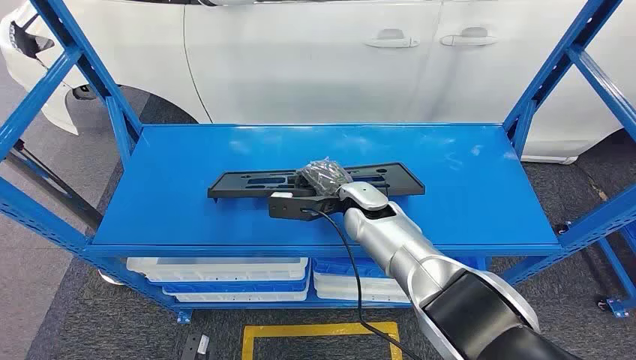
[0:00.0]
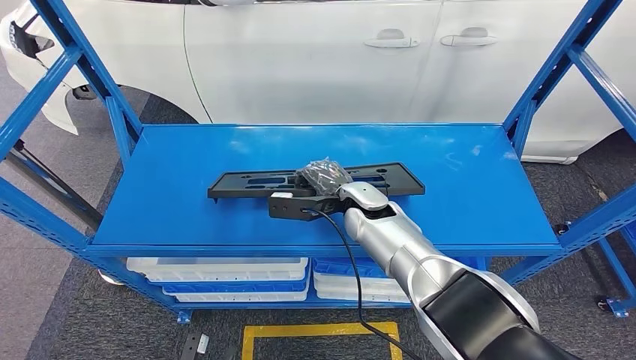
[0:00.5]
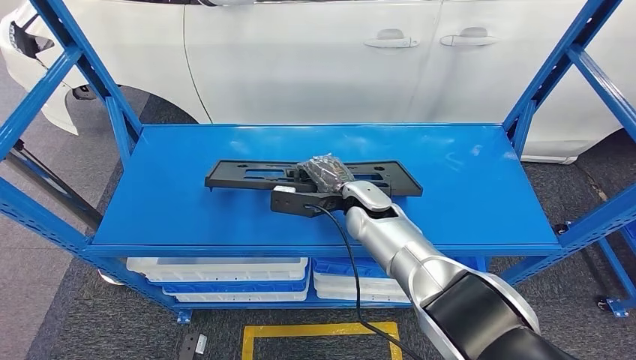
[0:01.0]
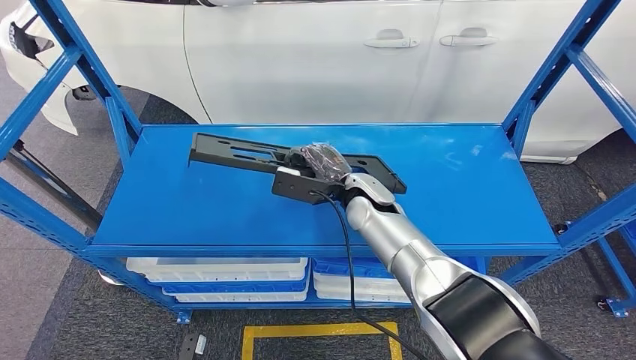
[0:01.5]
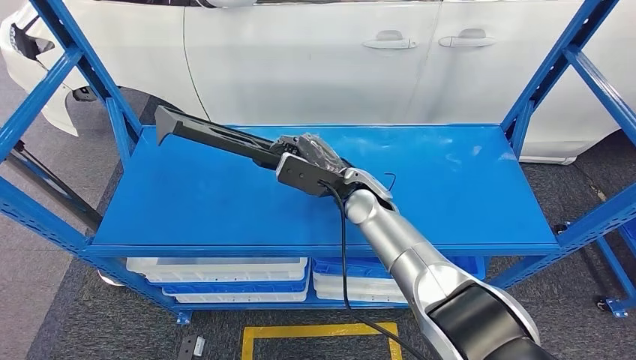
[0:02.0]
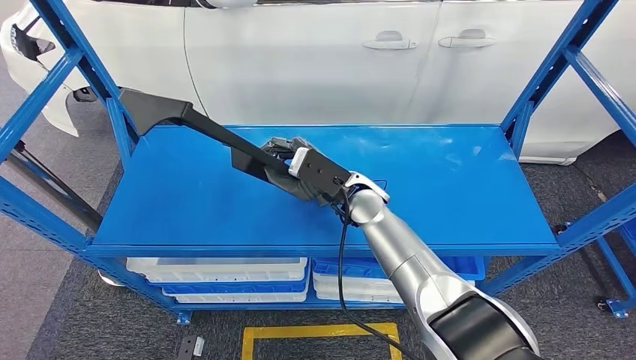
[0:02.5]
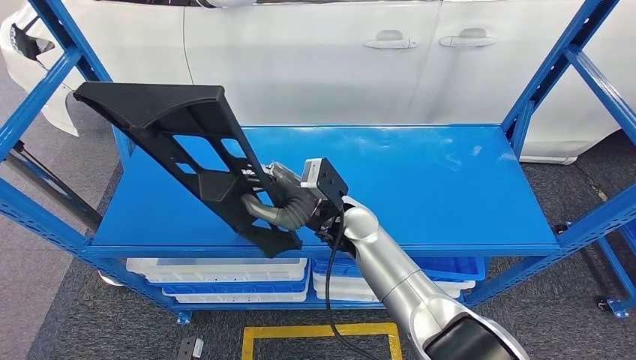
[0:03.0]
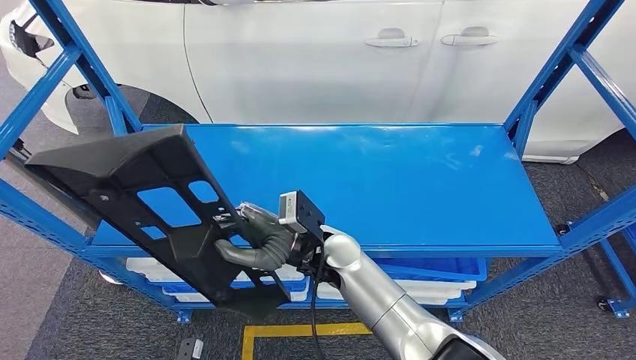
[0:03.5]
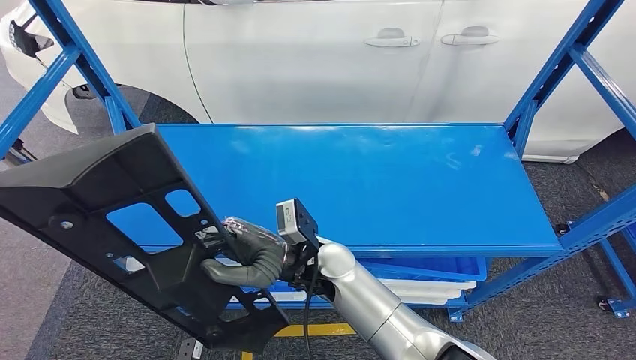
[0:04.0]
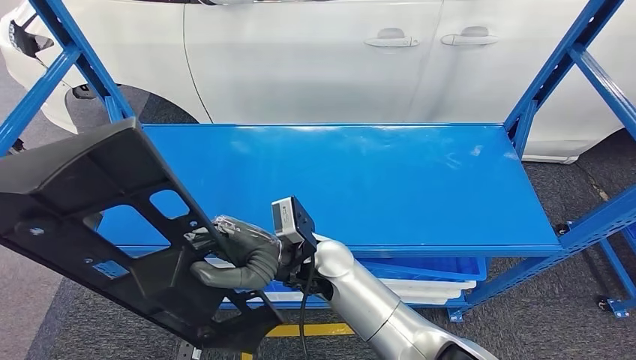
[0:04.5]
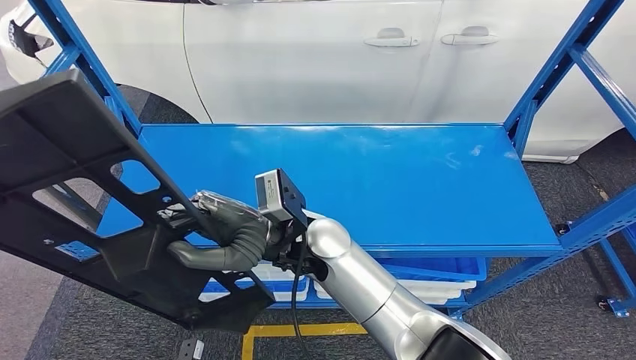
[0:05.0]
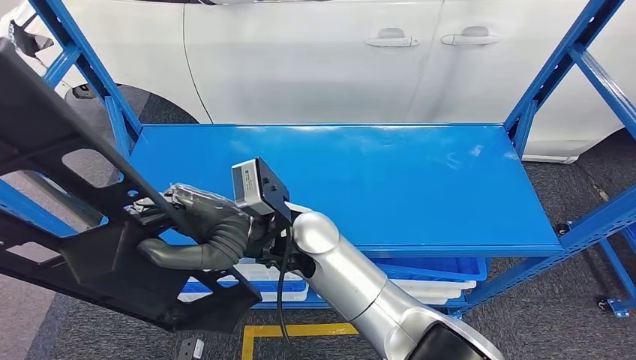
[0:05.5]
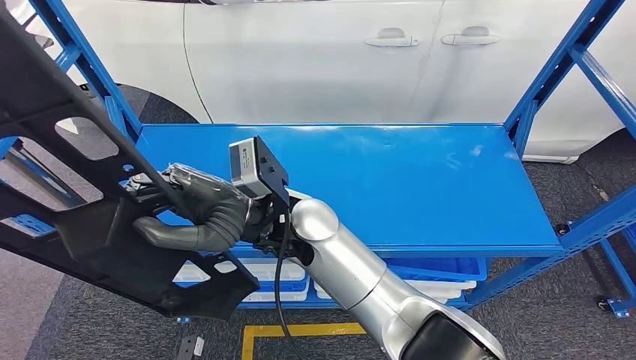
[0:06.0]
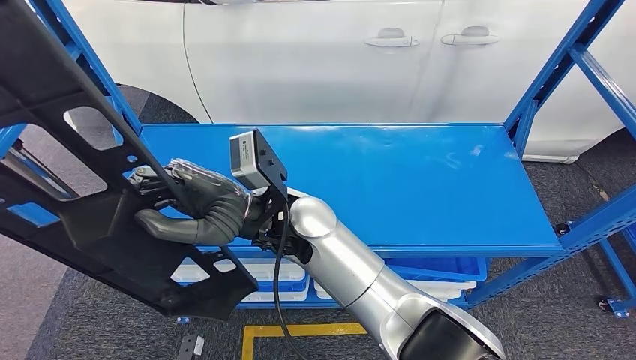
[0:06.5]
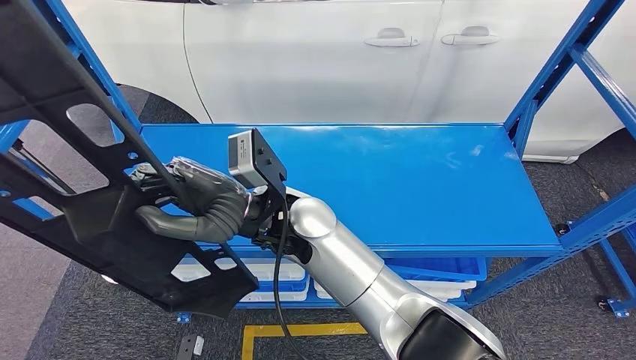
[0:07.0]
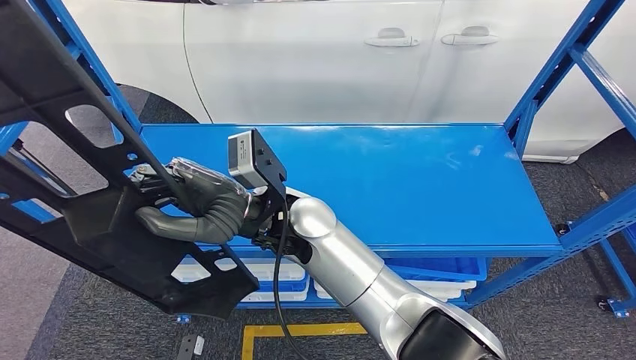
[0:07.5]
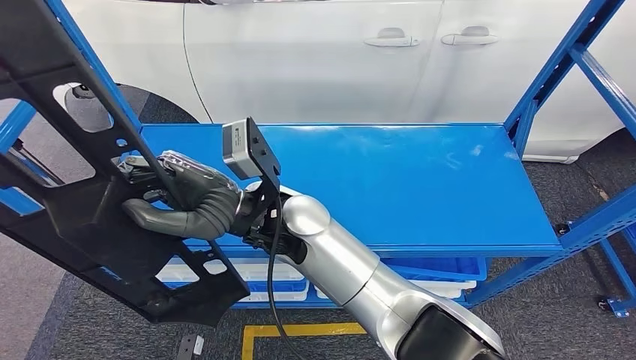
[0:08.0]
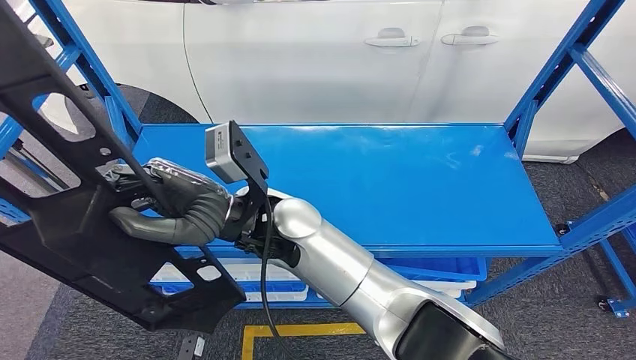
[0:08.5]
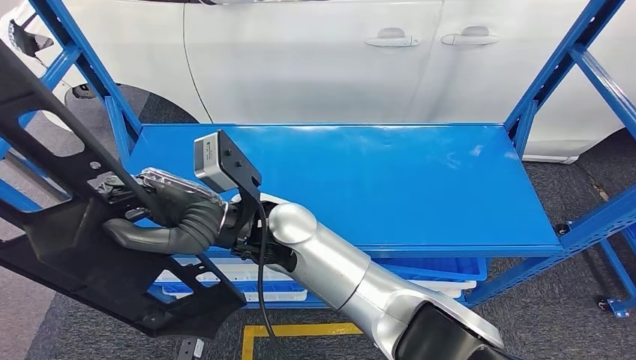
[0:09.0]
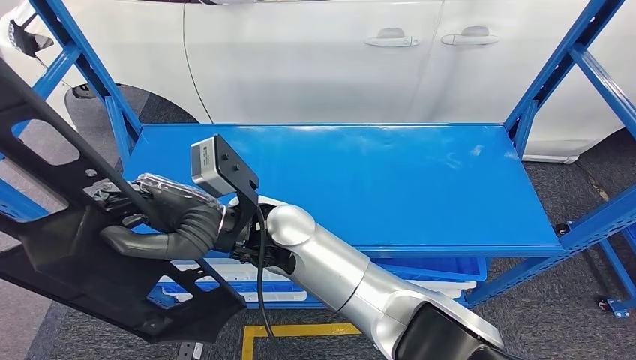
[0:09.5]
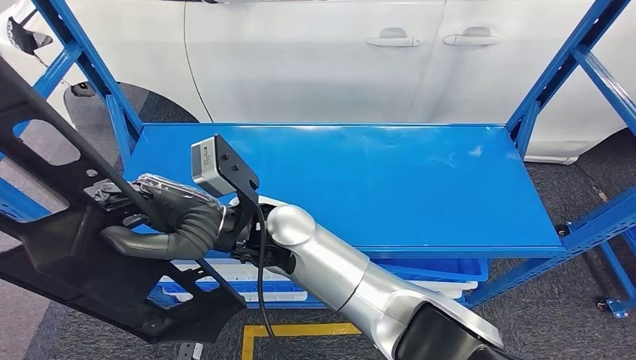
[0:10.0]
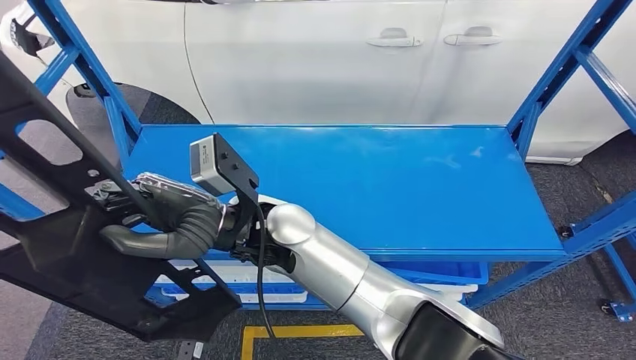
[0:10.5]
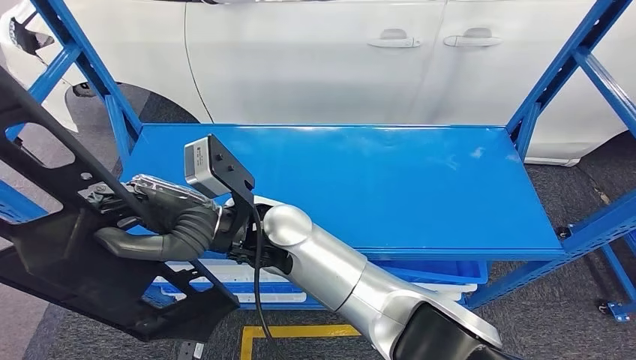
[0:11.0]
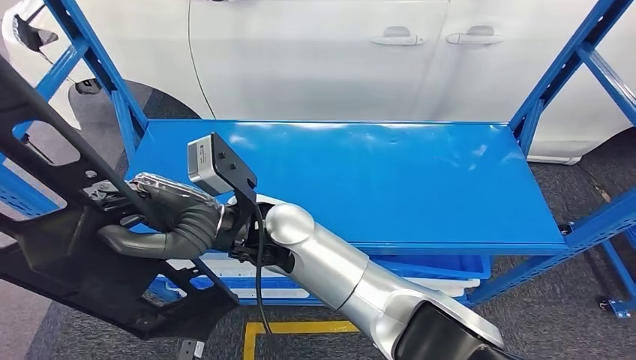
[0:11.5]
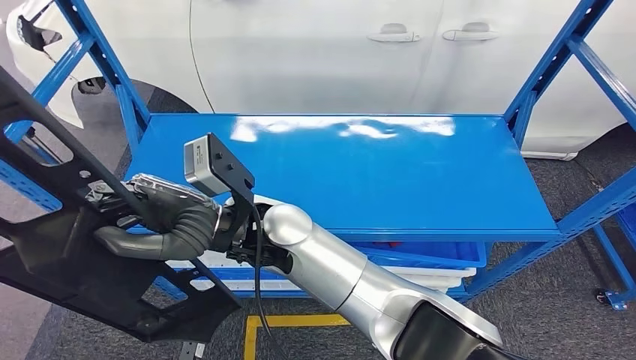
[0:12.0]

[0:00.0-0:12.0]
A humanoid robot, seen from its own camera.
Step, 0:00.0 to 0:04.5: Pick up the small component from the shelf.
0:06.0 to 0:08.0: Both hands stay about where they are.

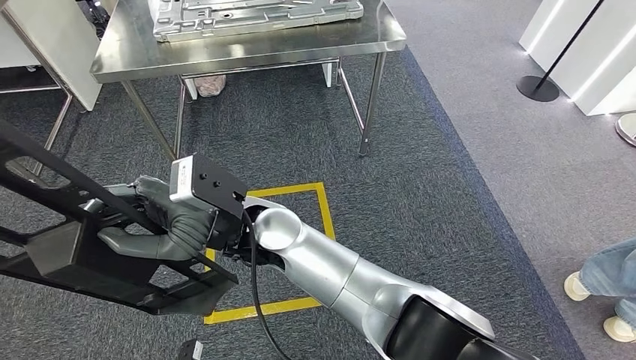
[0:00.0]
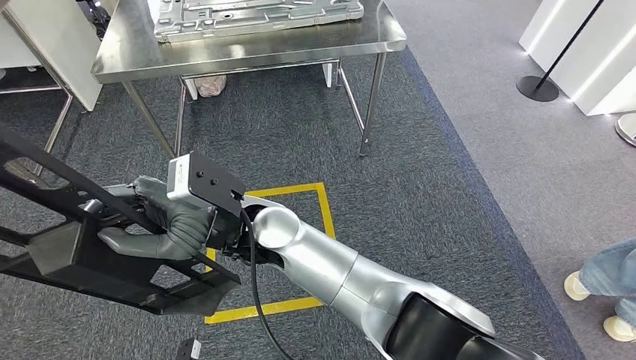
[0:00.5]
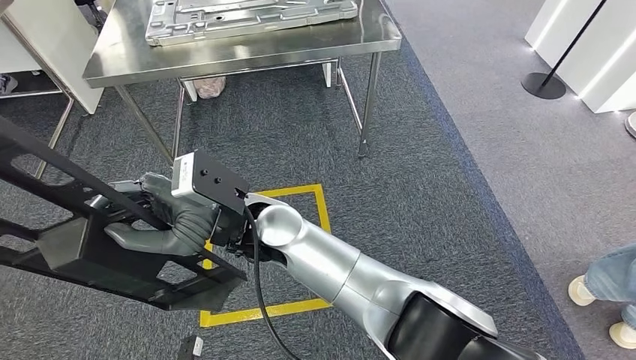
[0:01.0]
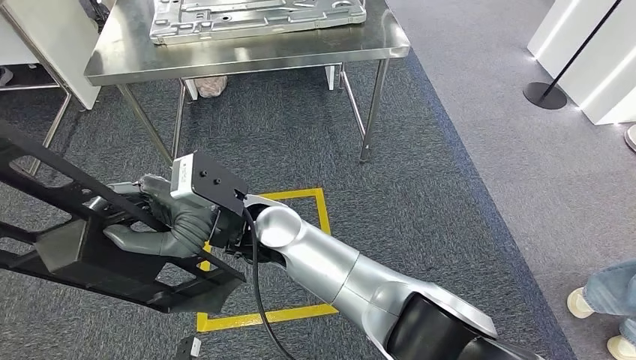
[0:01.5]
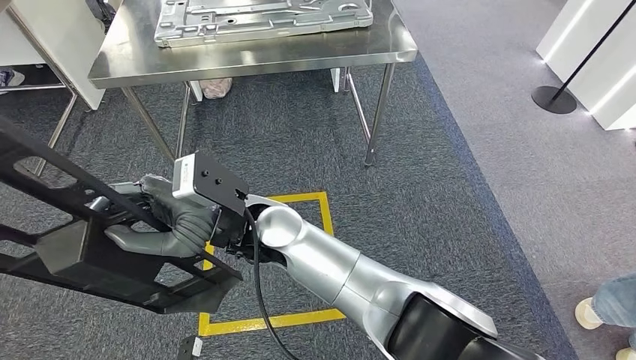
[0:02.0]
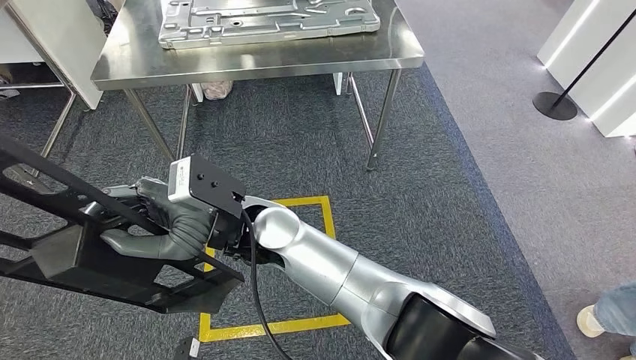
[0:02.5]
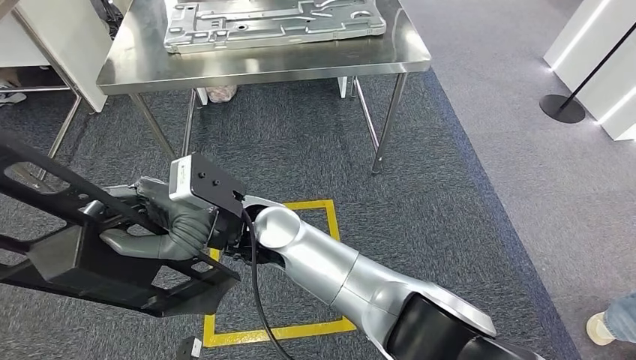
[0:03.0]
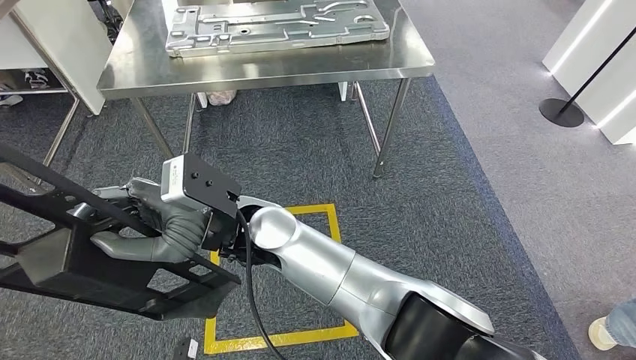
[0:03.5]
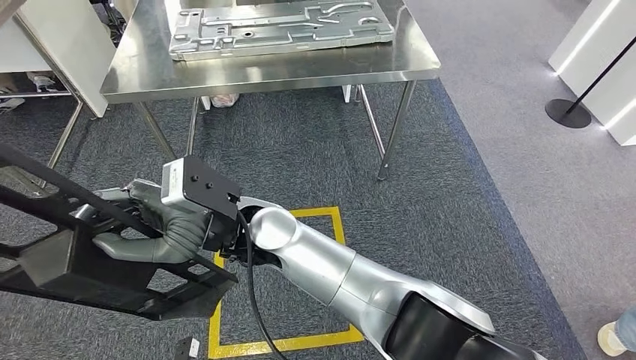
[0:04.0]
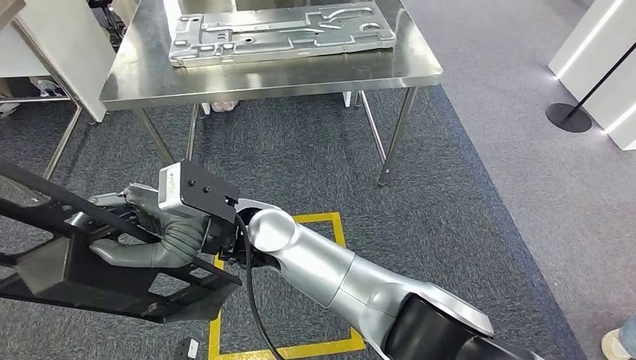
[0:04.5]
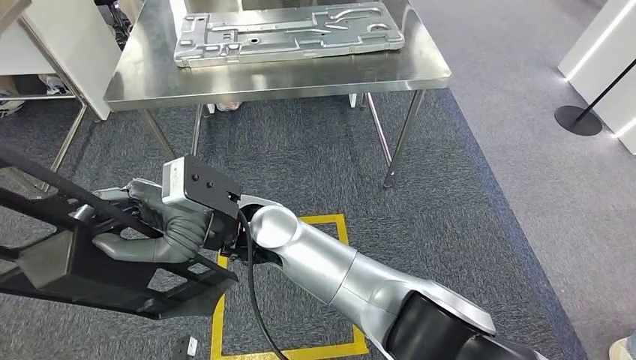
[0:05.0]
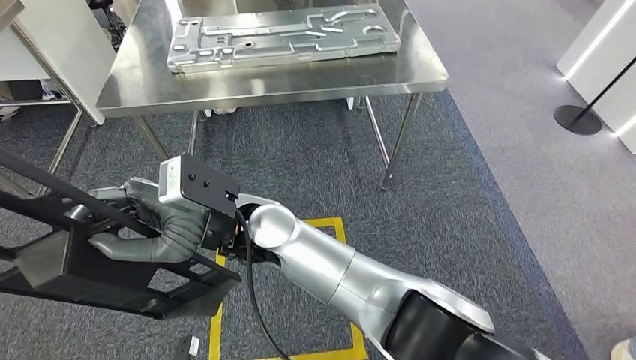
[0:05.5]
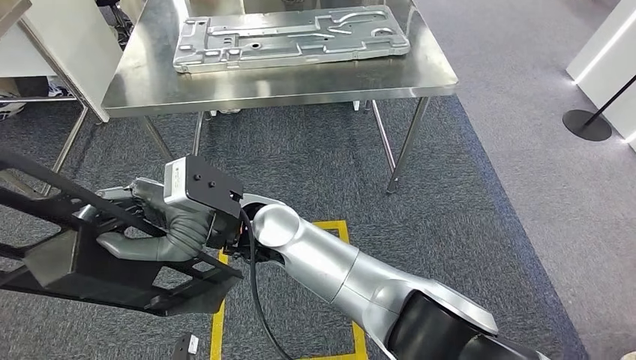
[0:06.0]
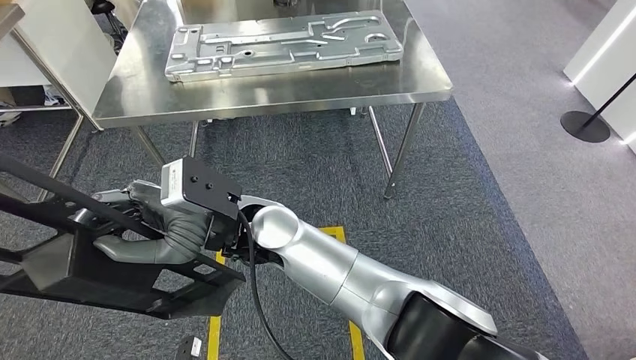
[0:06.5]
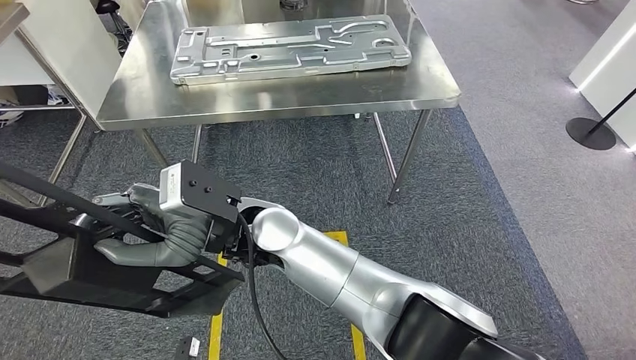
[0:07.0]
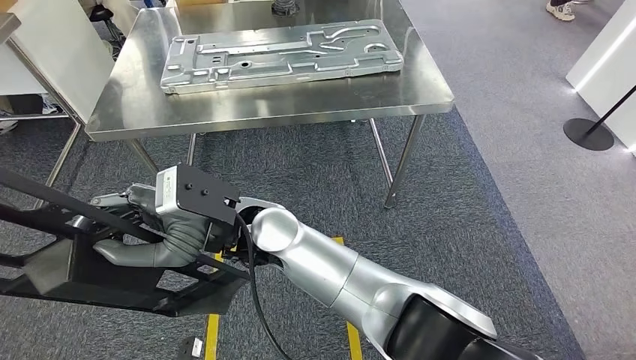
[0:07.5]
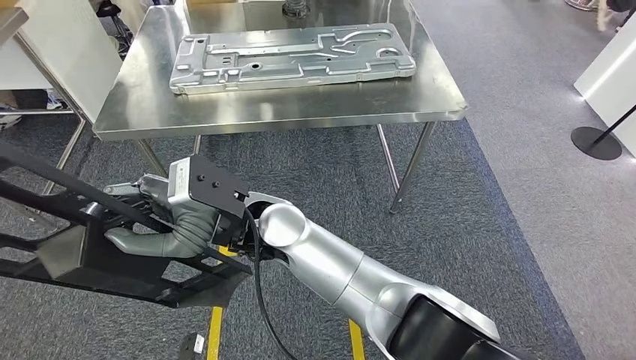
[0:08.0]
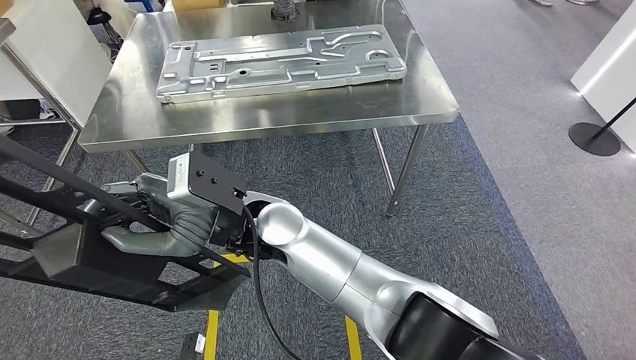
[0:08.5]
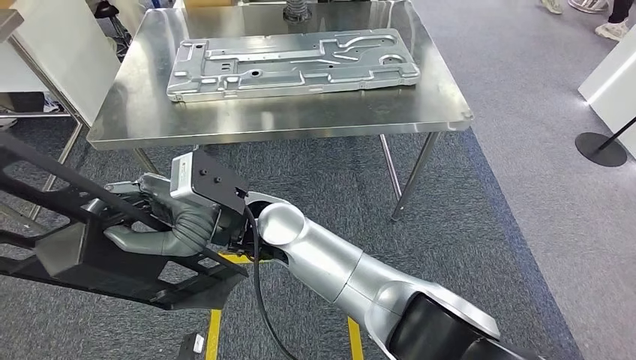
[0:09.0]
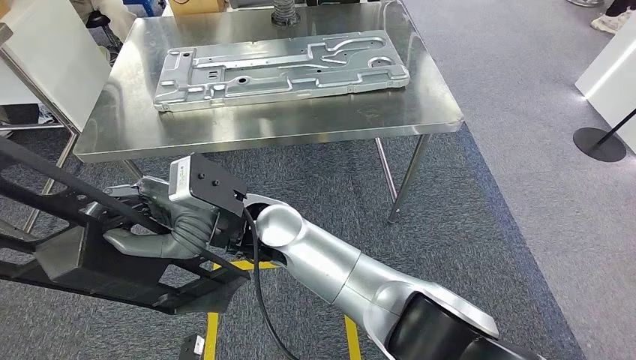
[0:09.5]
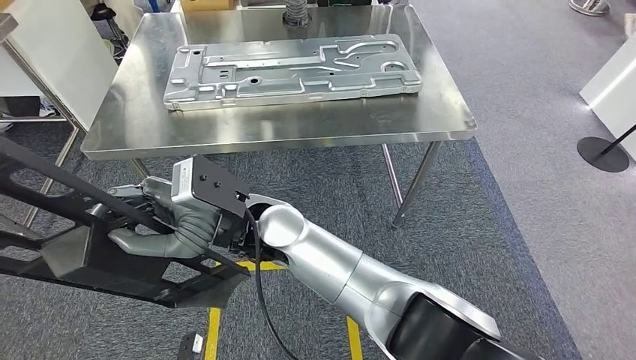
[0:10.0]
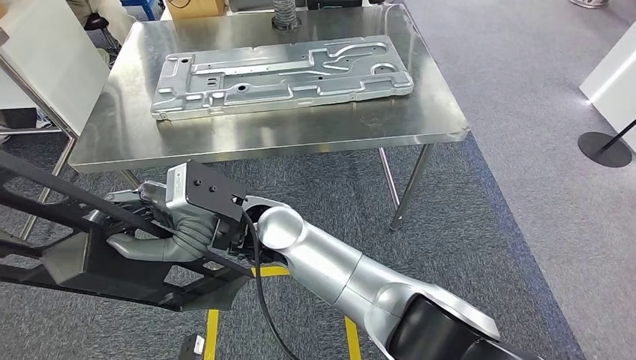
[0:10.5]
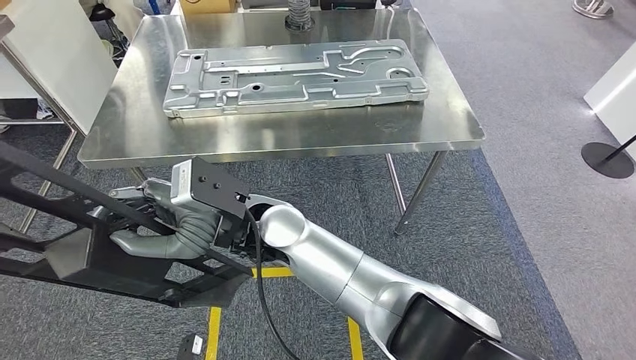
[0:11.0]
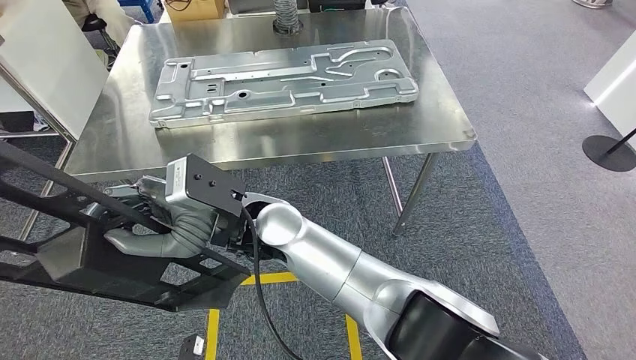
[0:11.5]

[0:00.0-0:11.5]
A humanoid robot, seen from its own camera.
0:09.5 to 0:11.5: Neither hand changes place.
